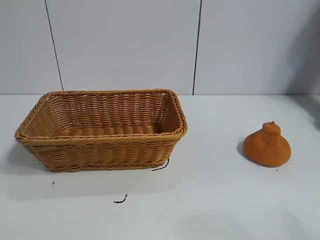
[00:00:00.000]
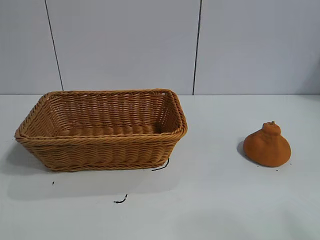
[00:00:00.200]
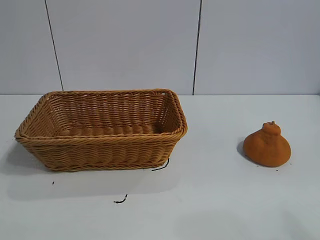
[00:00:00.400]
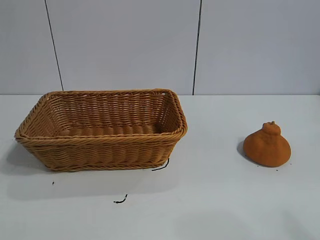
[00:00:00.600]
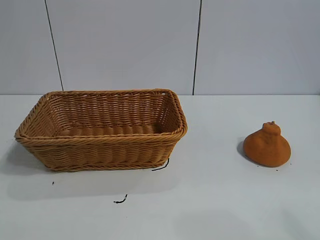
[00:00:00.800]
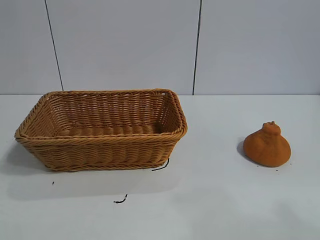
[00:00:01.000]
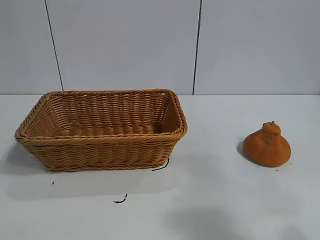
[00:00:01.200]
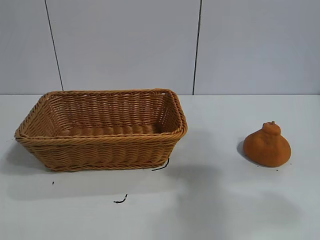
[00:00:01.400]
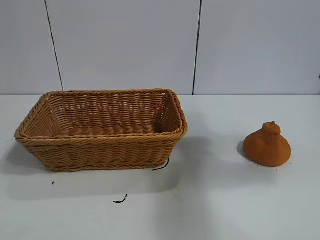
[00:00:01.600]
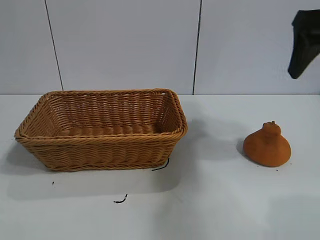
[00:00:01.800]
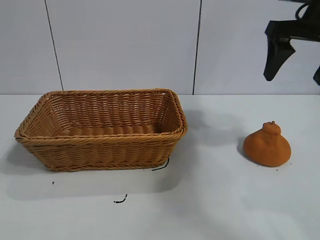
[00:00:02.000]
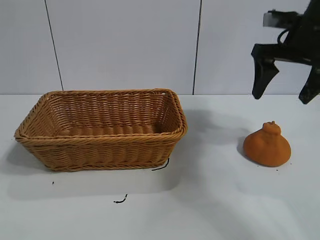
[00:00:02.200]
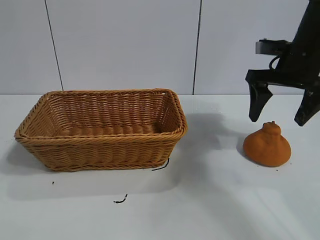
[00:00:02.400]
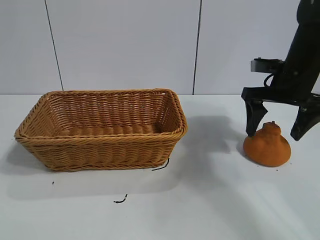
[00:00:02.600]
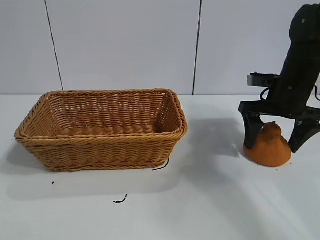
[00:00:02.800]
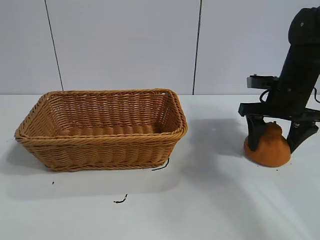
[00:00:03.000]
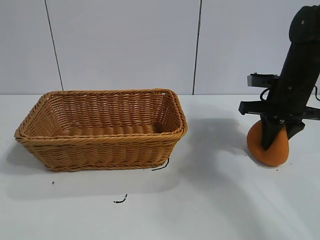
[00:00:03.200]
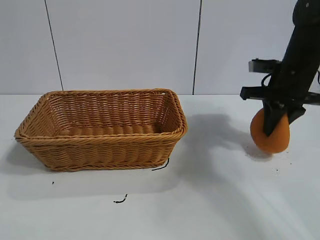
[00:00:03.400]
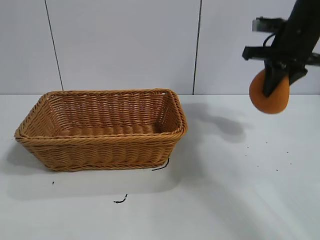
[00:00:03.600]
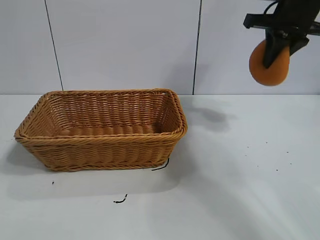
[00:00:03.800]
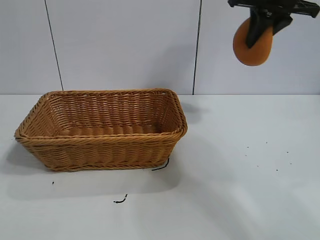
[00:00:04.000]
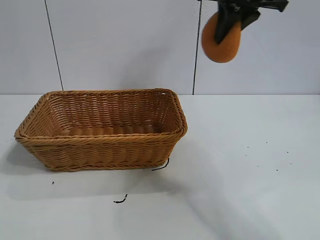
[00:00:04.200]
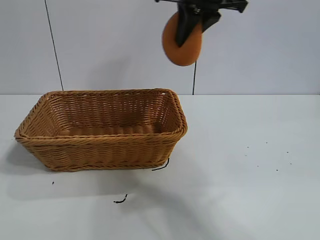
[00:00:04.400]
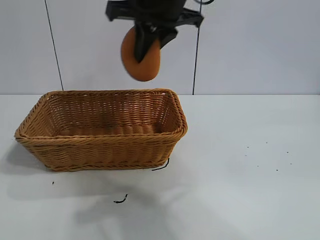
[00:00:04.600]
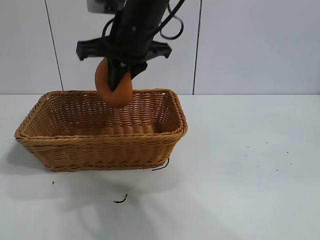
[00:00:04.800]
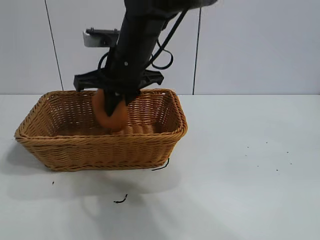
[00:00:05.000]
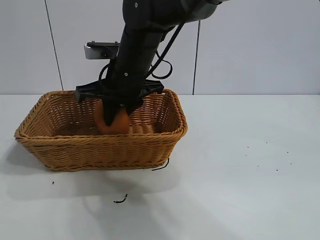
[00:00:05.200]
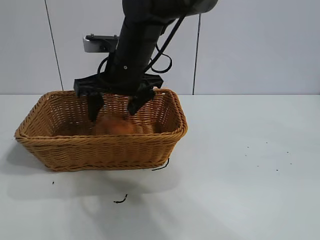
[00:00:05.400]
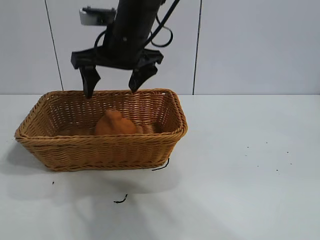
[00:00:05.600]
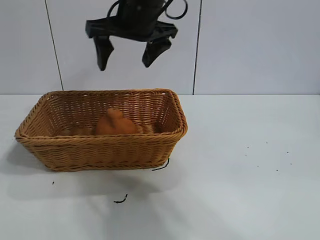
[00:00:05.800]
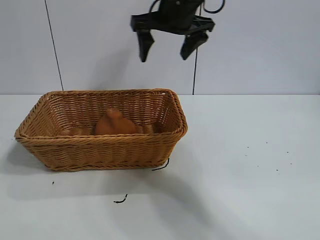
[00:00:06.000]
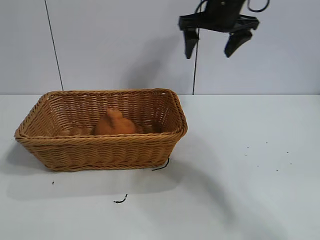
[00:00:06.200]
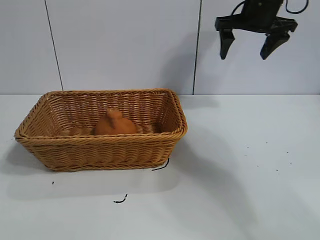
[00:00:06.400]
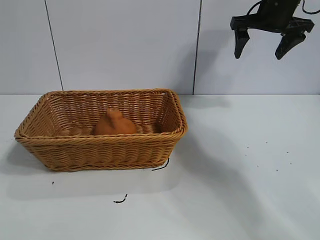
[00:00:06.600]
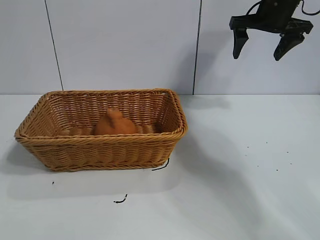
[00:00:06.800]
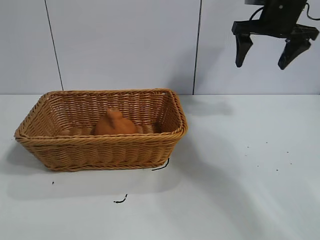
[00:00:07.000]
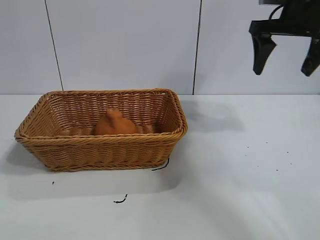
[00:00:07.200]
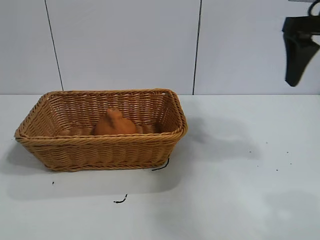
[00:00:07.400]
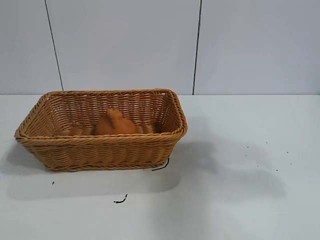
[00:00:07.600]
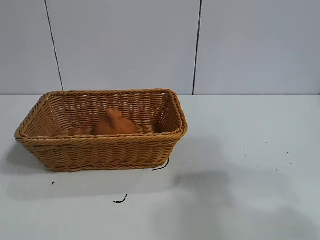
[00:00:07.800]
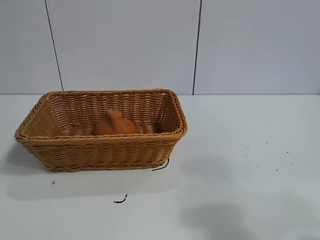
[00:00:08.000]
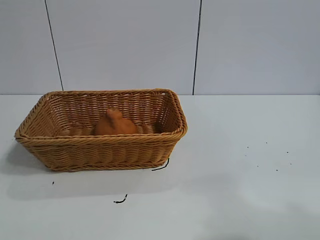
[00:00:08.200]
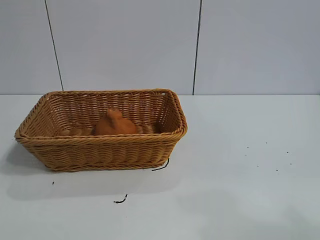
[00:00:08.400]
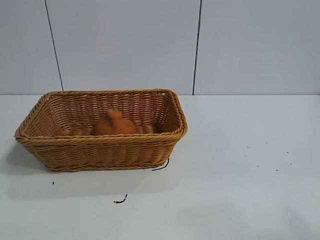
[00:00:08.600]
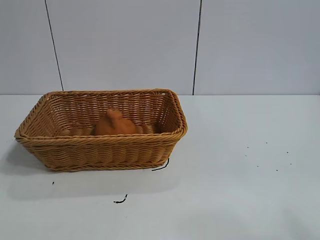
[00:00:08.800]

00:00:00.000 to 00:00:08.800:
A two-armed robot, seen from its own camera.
Task of the whole recording: pick up the orange and put it into the basket.
Step, 00:00:01.000 to 00:00:03.200: Grasp the orange with right gripper.
Step, 00:00:03.600 to 00:00:05.400: Place the orange in the basket with right gripper.
